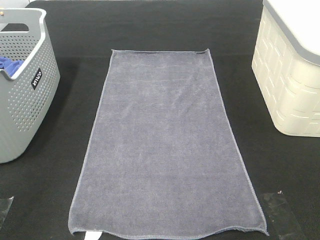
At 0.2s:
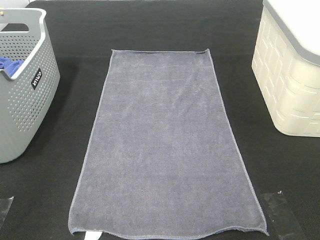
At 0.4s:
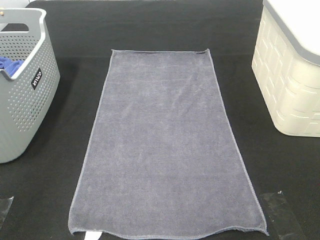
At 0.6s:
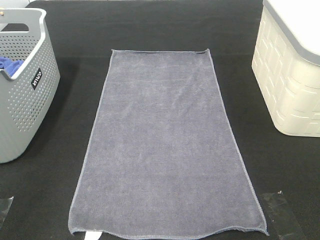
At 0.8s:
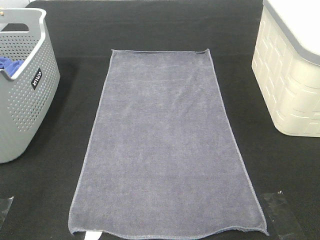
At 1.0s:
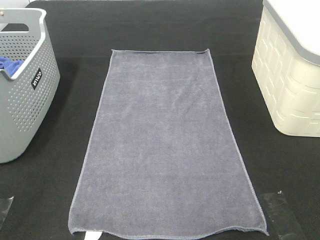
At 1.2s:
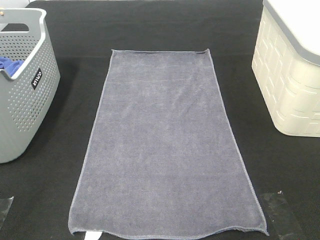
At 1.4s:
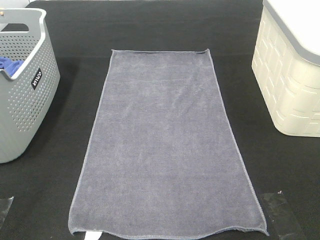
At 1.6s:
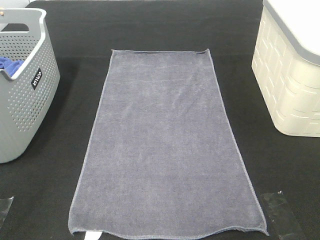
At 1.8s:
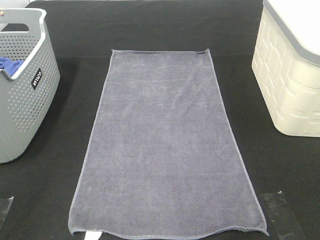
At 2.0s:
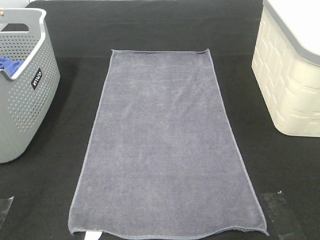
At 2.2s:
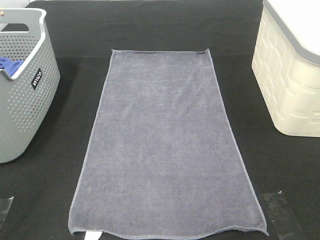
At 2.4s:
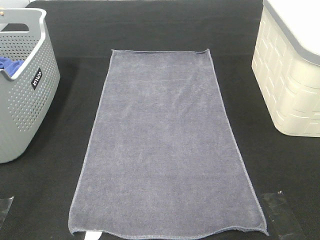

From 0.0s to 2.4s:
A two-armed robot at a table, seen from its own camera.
Task of the whole recording: Remove the towel and place it.
From 1.2s to 2.4s: Both grippers stay about where they are.

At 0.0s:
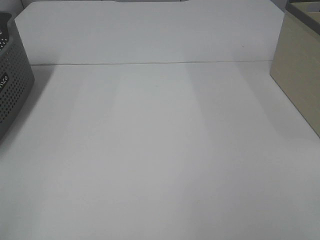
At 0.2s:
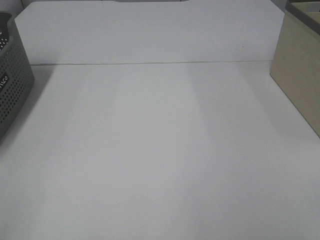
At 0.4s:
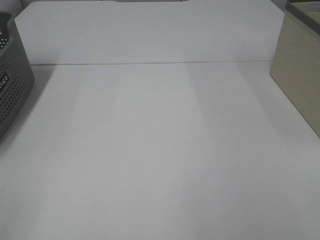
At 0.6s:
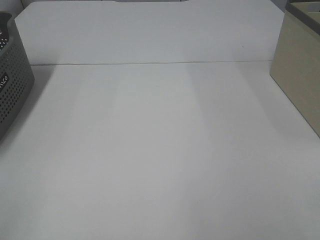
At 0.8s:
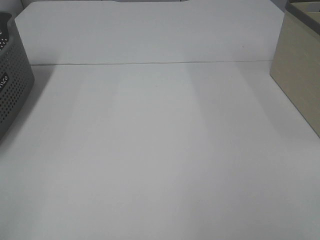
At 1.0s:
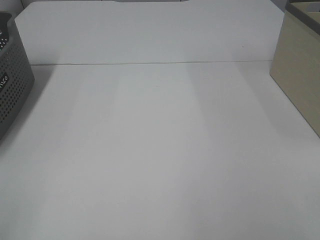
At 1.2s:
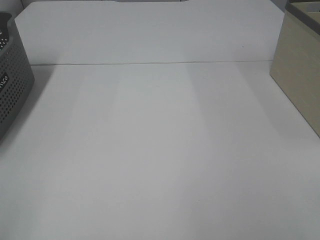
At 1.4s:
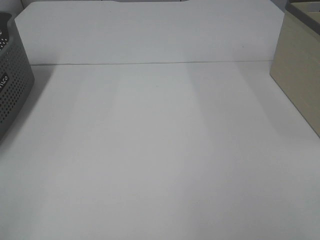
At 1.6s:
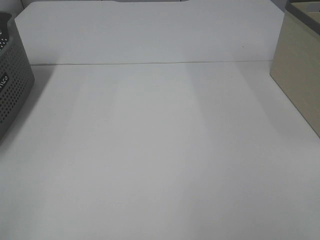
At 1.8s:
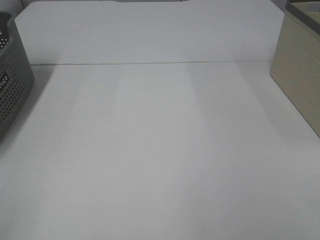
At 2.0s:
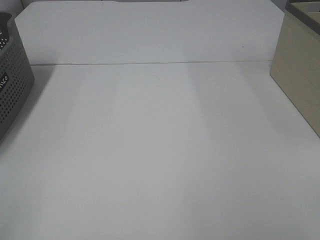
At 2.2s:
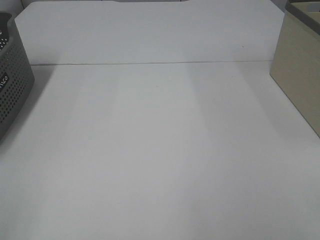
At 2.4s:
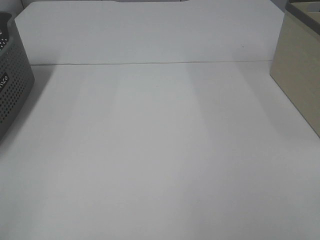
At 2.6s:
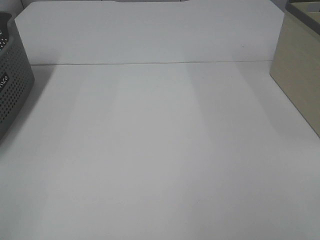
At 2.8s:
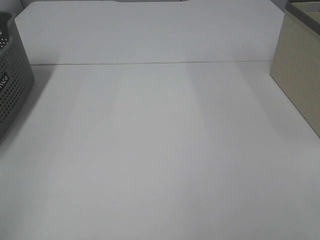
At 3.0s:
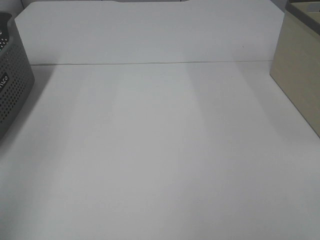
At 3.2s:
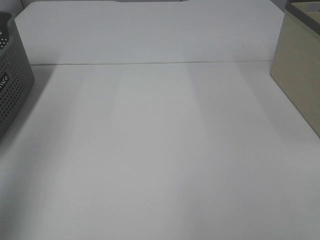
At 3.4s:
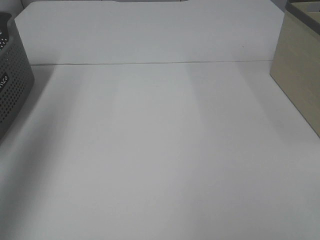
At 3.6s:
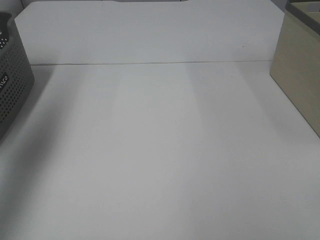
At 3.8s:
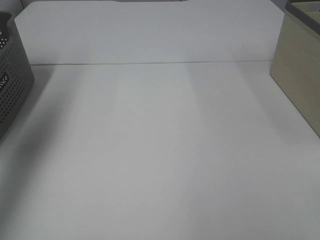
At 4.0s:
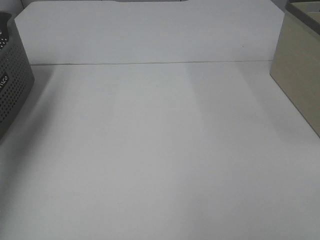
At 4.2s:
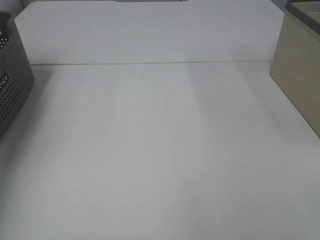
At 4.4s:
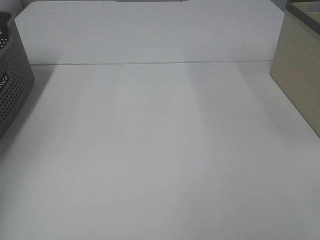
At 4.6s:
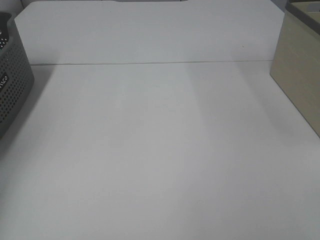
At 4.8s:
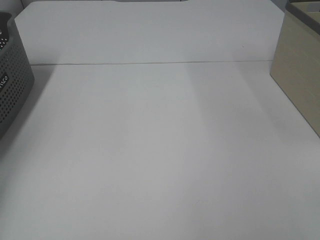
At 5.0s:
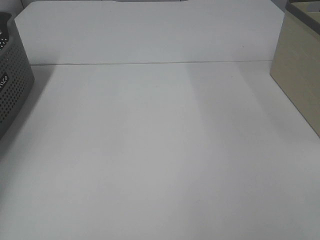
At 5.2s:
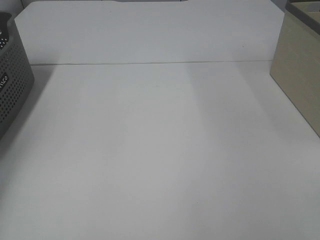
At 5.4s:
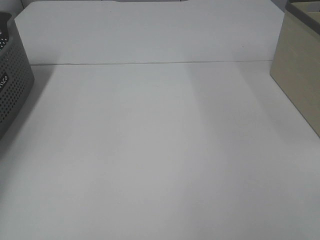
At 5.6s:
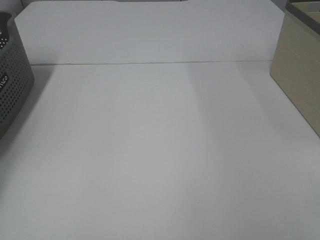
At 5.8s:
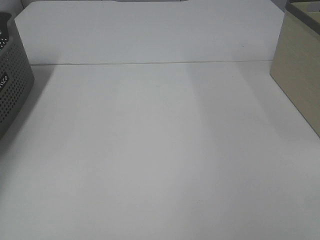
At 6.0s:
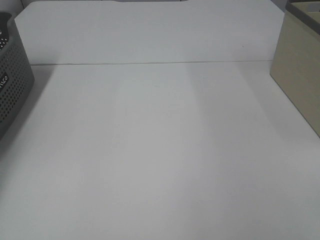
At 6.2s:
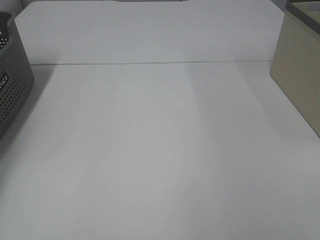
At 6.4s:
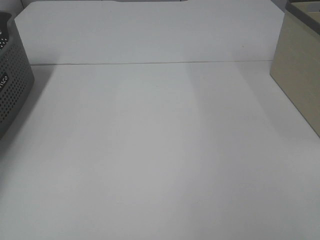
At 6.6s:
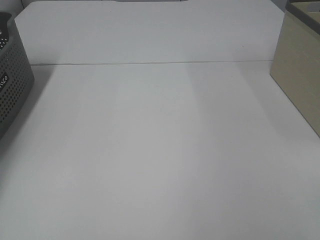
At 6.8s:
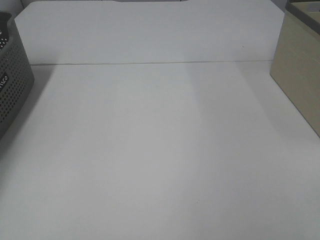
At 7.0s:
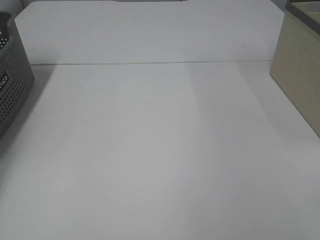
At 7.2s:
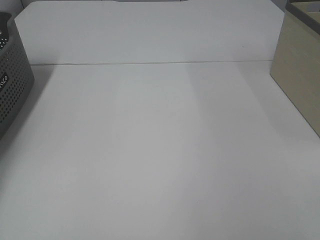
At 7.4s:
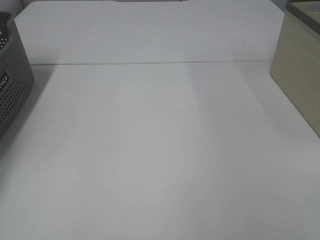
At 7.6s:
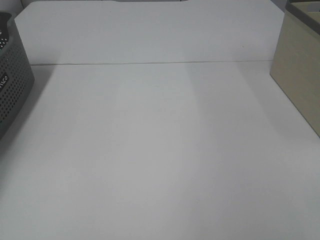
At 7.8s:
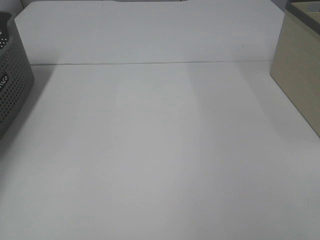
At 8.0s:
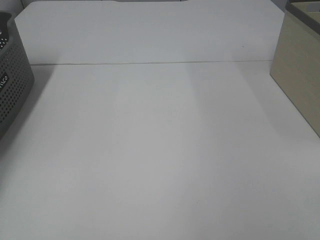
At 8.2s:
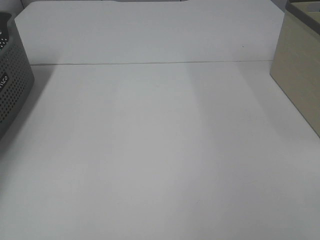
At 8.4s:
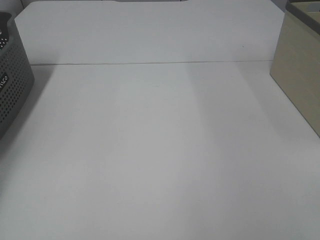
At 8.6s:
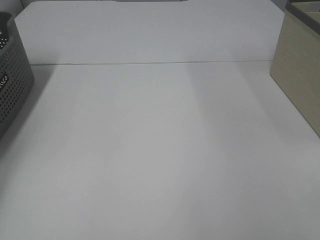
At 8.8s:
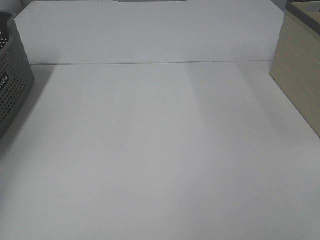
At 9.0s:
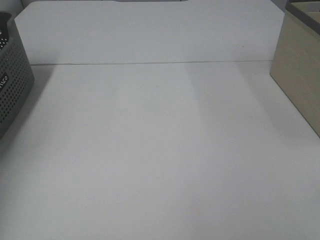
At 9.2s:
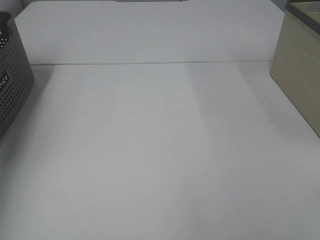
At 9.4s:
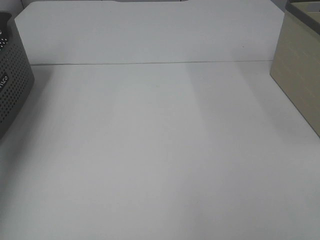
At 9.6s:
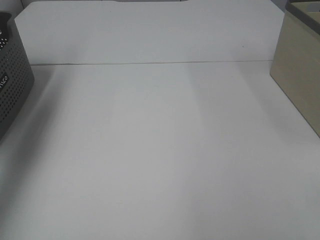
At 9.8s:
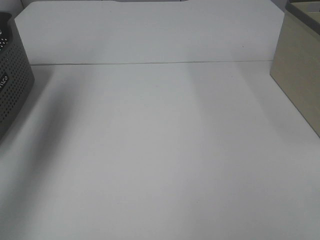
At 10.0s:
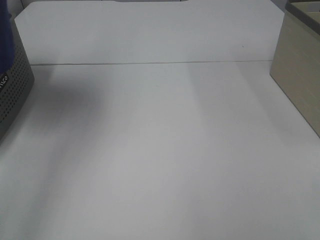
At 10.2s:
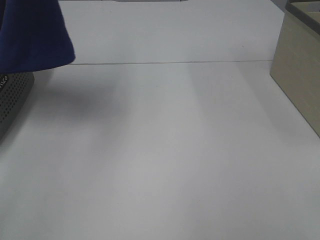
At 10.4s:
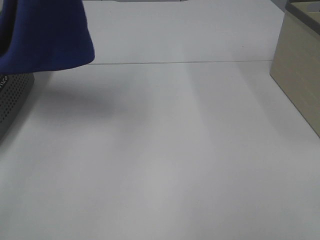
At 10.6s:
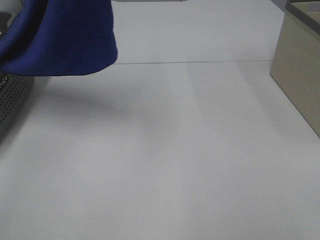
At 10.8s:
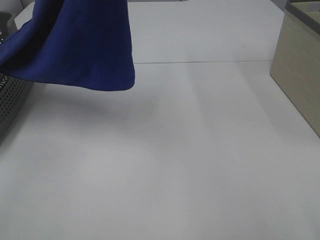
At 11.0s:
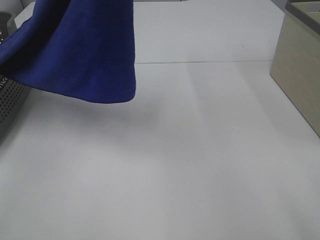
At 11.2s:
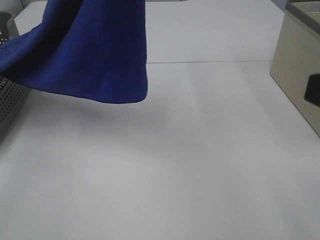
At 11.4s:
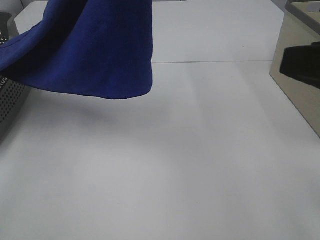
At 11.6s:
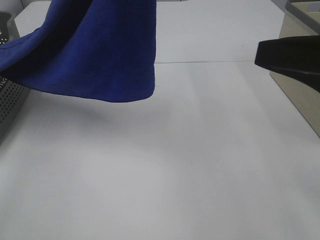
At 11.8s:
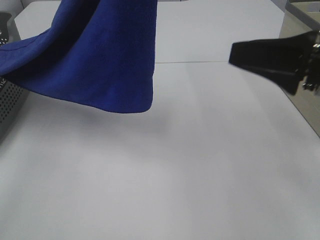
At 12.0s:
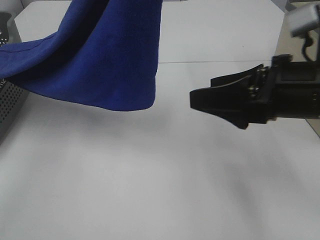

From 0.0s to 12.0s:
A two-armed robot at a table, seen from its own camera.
Task of the whole recording: Remove the towel and place it.
From 0.0s to 1.6s: The two grippers keep their place.
From 3.0s to 4.4s: The left gripper heads forward, covering some 30 cm.
From 9.0s to 10.4s: The left gripper is displaced to the right and upward by approximately 35 cm.
From 10.4s to 12.0s: The right gripper is displaced forward and to the left by approximately 25 cm; the left gripper goes approximately 10 cm to the right and backward.

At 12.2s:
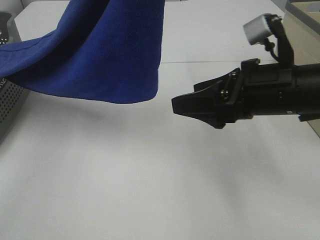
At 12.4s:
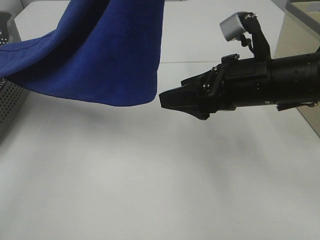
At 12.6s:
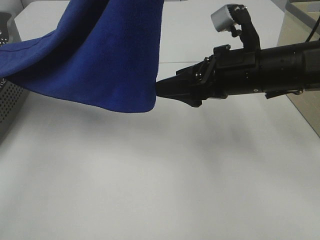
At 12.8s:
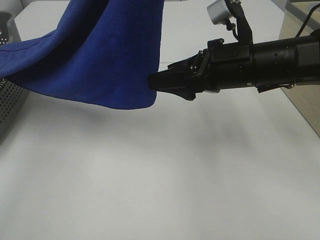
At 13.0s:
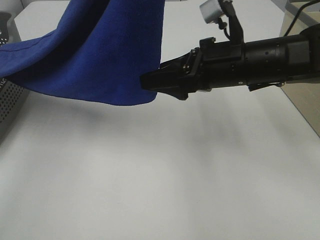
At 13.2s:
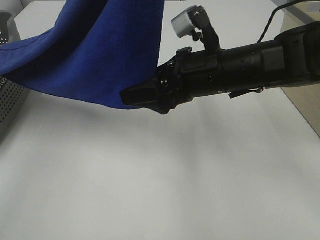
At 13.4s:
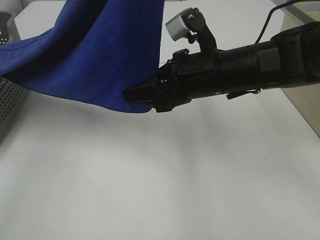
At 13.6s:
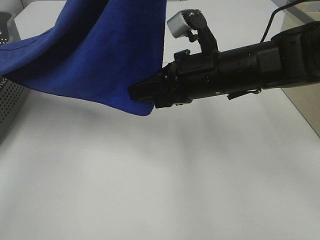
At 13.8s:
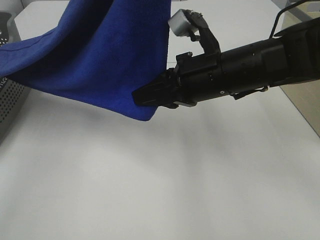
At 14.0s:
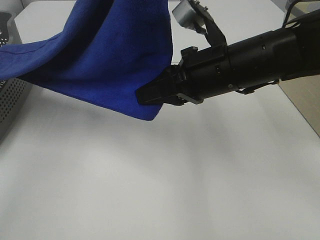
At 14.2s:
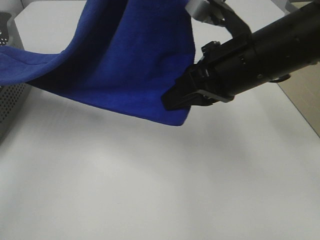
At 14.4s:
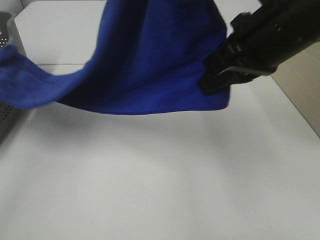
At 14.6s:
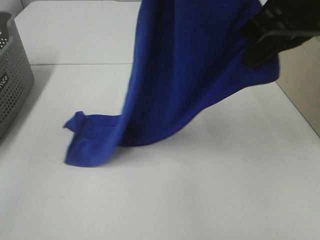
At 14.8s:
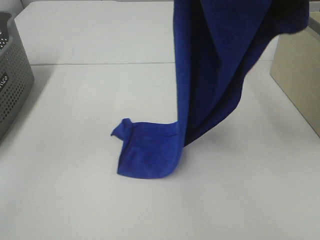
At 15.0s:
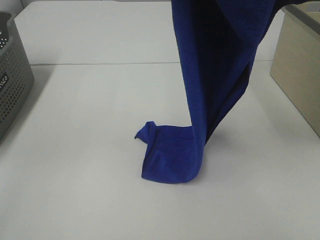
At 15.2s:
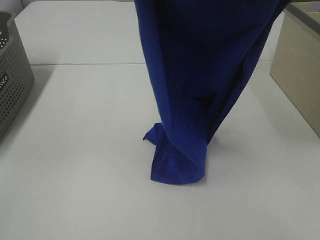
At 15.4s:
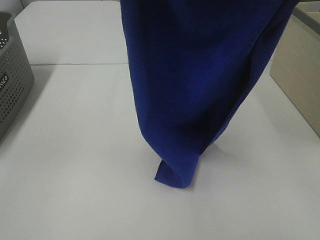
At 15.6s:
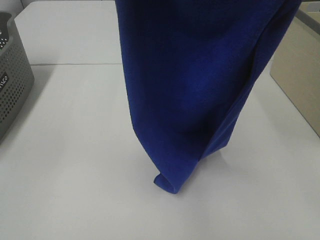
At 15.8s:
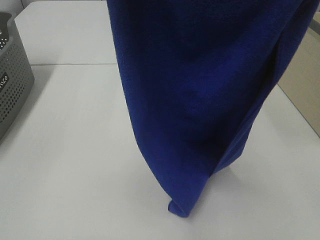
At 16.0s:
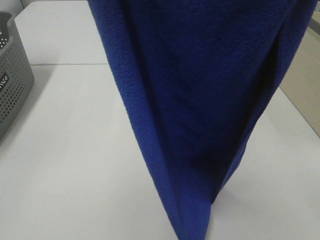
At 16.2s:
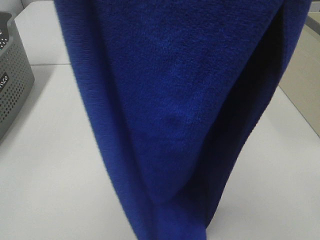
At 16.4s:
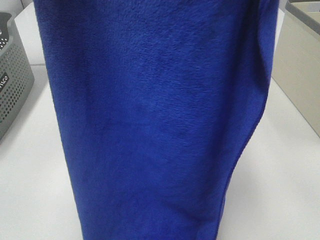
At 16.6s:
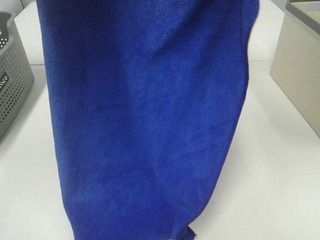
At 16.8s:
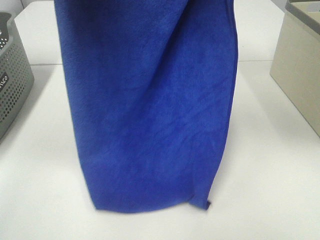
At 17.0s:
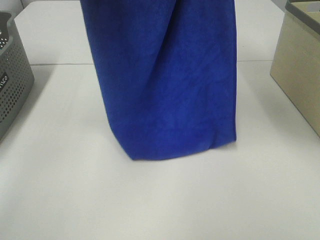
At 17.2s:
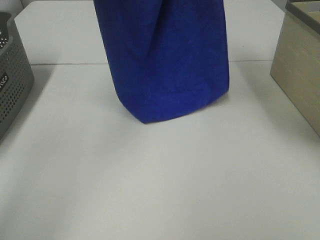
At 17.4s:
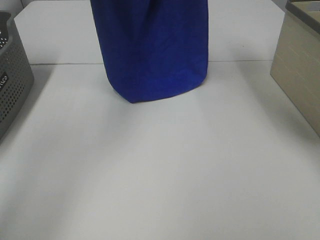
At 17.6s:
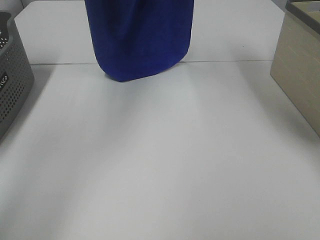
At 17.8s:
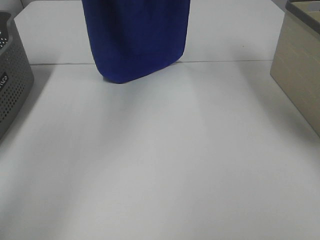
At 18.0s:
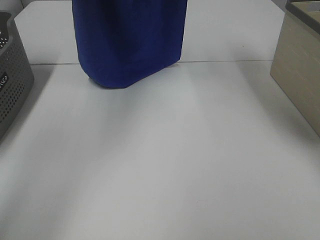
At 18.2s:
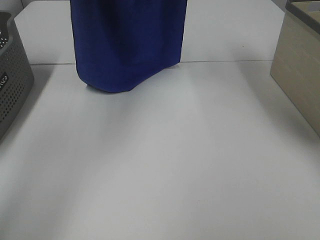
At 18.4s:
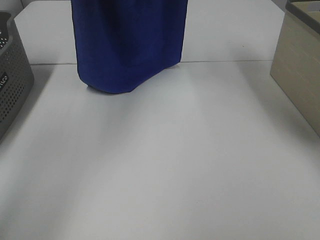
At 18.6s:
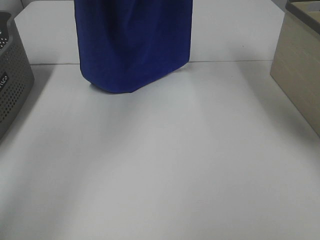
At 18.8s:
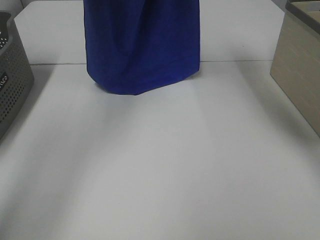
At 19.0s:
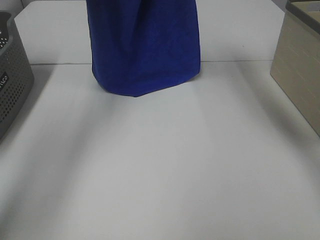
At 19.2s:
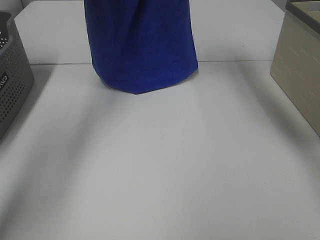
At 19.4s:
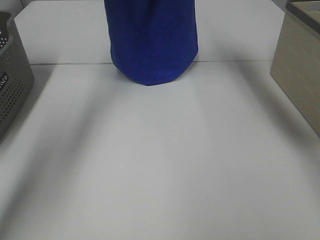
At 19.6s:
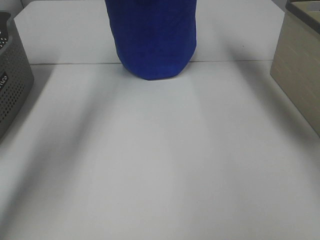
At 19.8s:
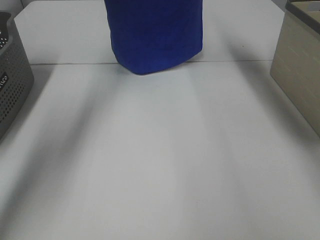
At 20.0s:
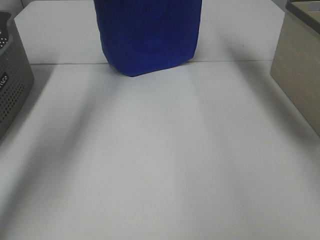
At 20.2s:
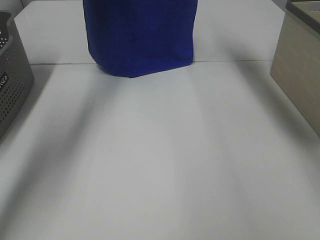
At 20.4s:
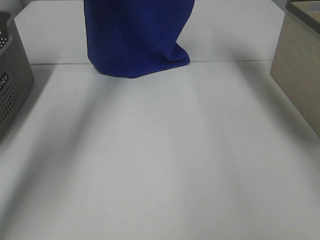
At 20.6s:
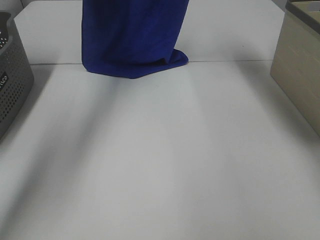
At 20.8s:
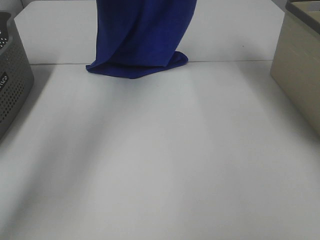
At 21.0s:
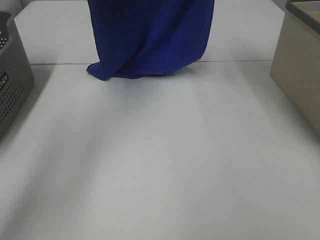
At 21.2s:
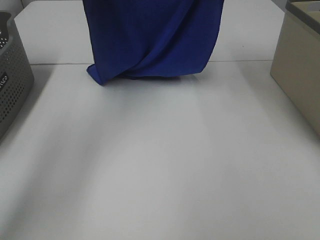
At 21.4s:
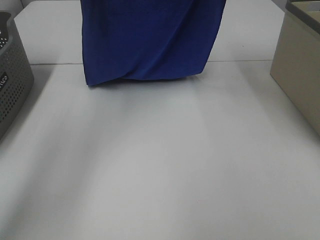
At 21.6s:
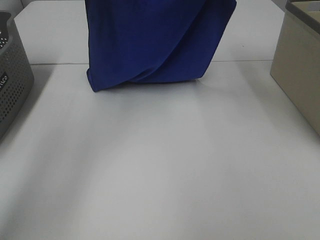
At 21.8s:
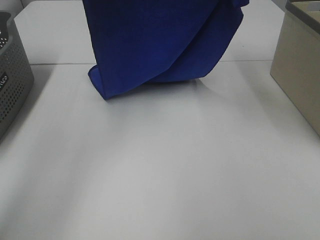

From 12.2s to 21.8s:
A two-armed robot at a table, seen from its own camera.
Task of the whole recording: Remove the towel and place it.
Step, from 12.2s to 14.8s: Right hand: grab a corner of the blue towel and straighten it.
From 12.2s to 13.8s: The right gripper shifts approximately 5 cm to the left, and closes up.
From 13.8s to 15.4s: The right gripper travels upward by approximately 25 cm, while the left gripper changes place by approximately 5 cm.
From 15.4s to 17.0s: The left gripper goes about 15 cm forward, while the right gripper moves forward and to the left, roughly 20 cm.
From 17.0s to 18.6s: Both grippers travel together forward, about 5 cm.
From 18.6s to 20.2s: The left gripper shifts approximately 10 cm forward; the right gripper shifts some 10 cm forward and downward.
From 20.2s to 21.8s: Both grippers move backward, approximately 15 cm.
